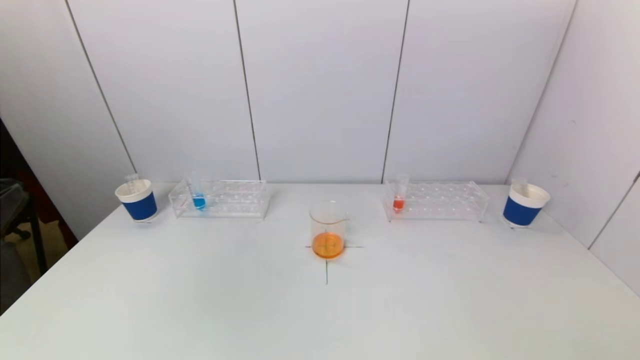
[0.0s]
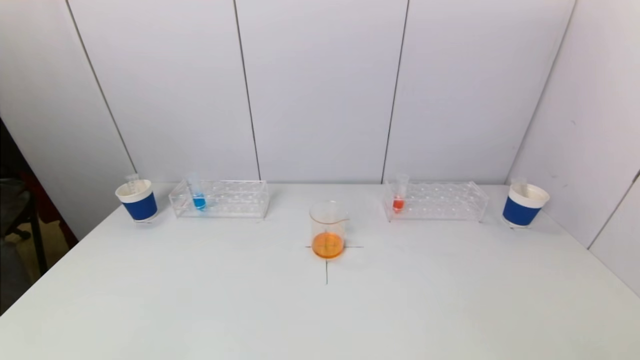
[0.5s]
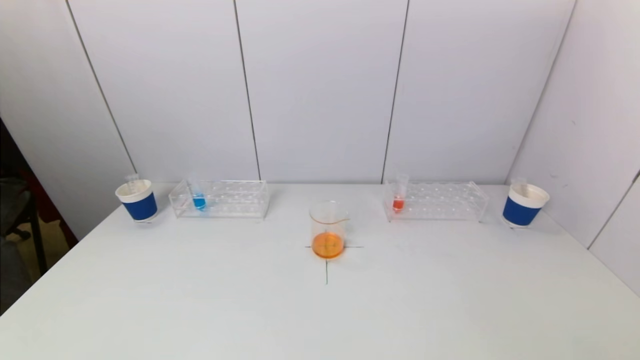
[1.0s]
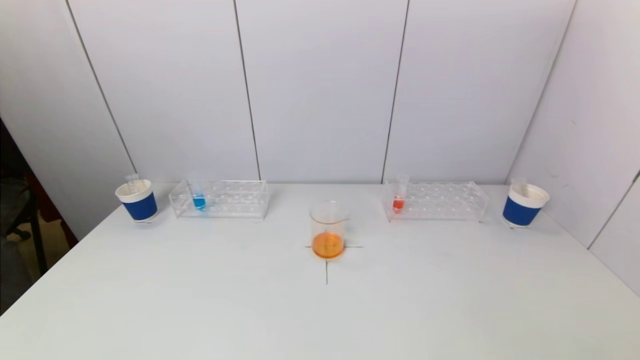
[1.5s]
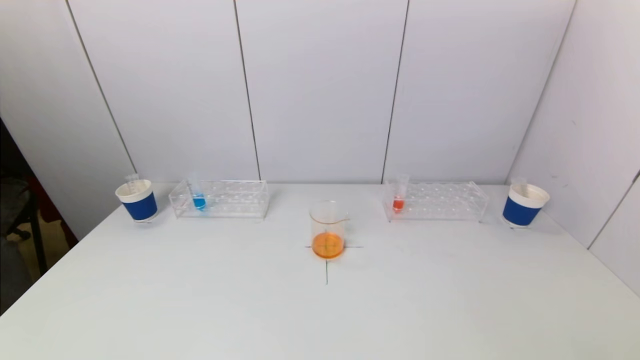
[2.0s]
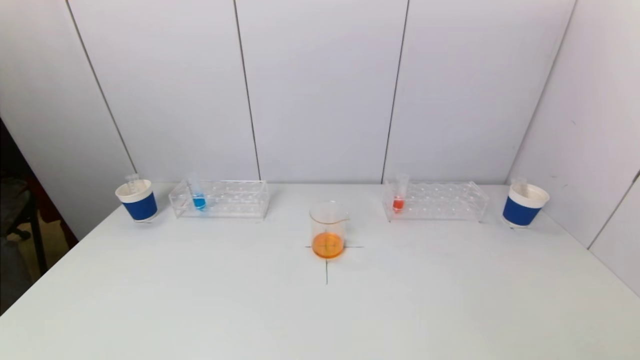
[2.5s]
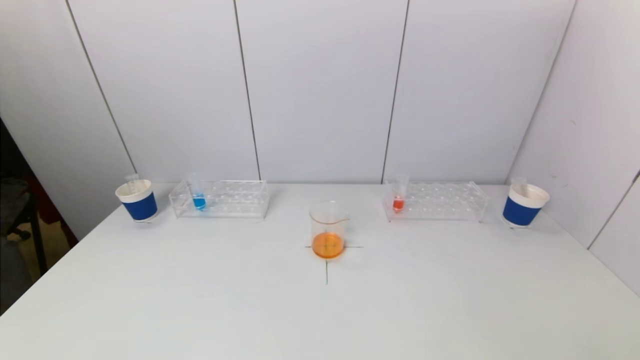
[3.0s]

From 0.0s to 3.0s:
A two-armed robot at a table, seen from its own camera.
Task of the whole recording: pick up a test tube with pigment on left test tube rack and a test tube with pigment on right test tube rack by grippers and pour them into the beaker.
From 1.5s to 3.0s: Both grippers stay about where they are.
